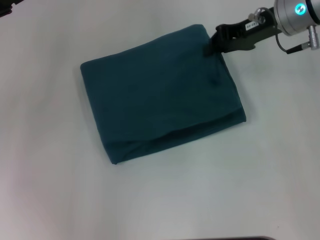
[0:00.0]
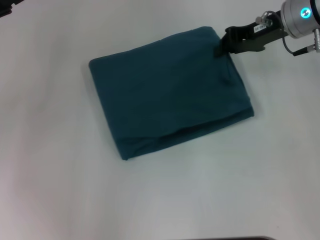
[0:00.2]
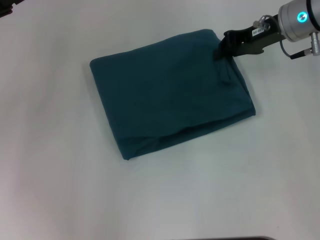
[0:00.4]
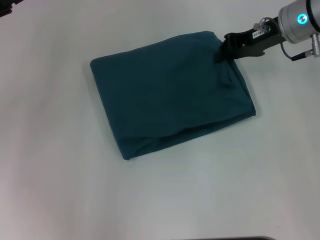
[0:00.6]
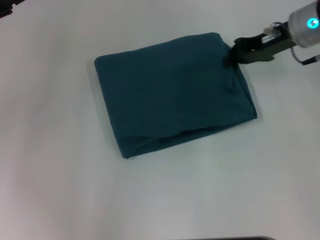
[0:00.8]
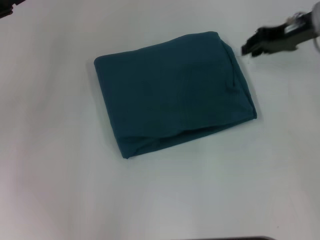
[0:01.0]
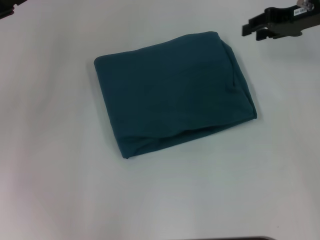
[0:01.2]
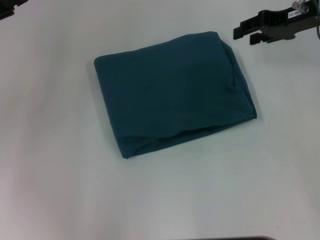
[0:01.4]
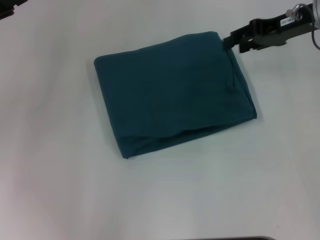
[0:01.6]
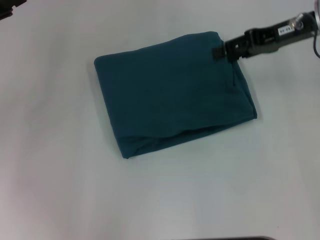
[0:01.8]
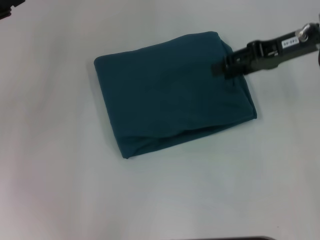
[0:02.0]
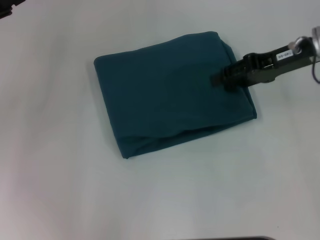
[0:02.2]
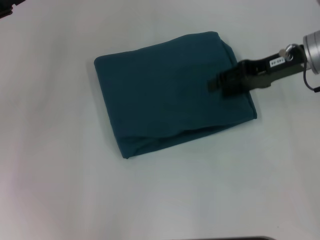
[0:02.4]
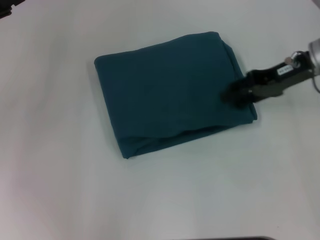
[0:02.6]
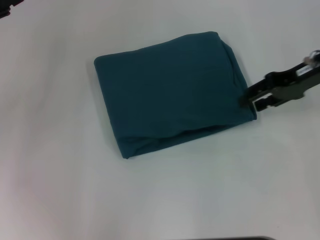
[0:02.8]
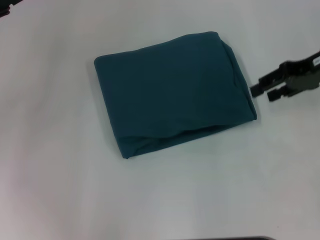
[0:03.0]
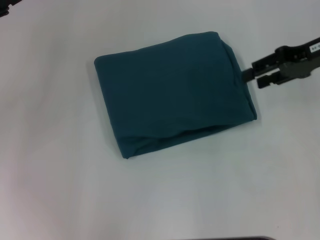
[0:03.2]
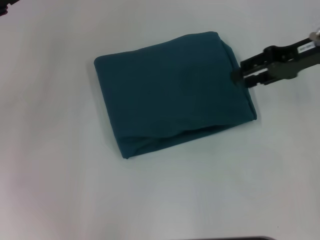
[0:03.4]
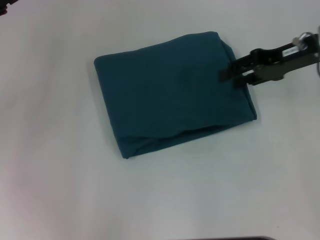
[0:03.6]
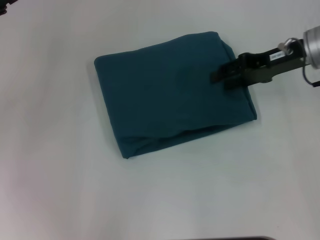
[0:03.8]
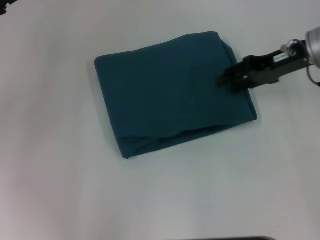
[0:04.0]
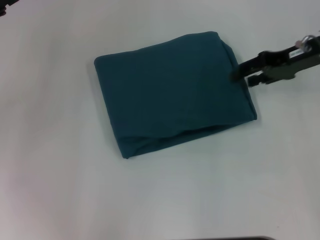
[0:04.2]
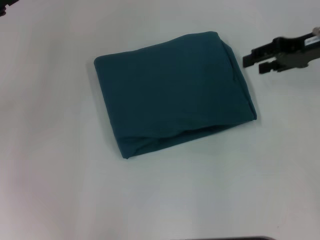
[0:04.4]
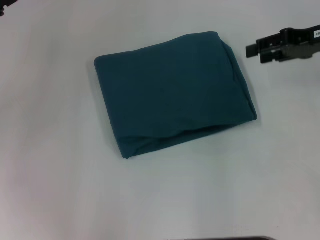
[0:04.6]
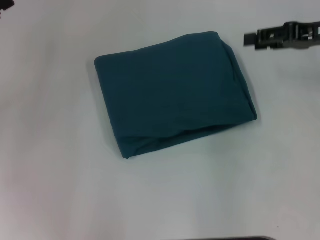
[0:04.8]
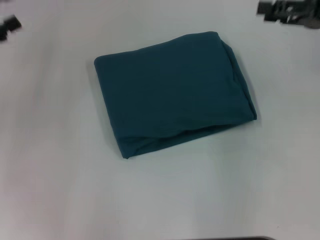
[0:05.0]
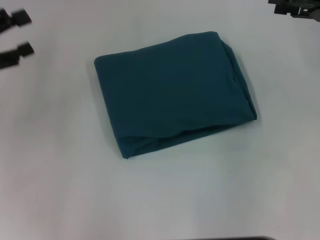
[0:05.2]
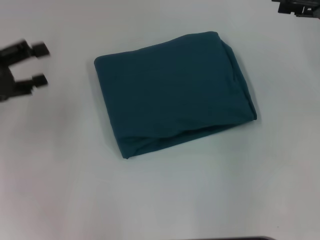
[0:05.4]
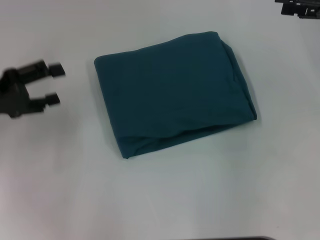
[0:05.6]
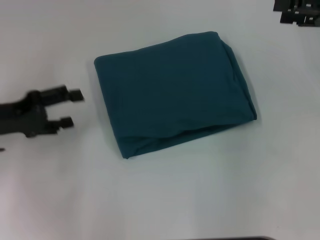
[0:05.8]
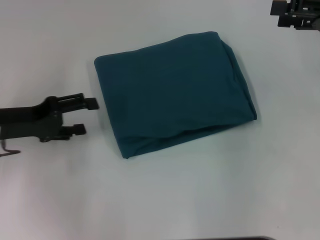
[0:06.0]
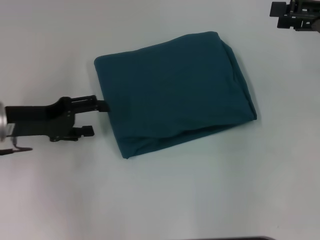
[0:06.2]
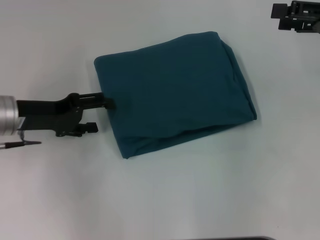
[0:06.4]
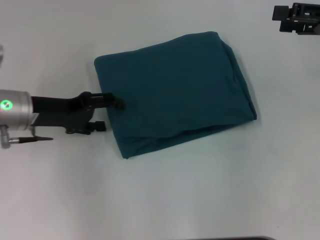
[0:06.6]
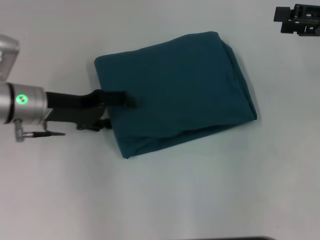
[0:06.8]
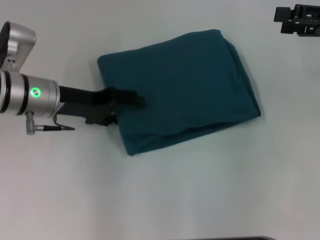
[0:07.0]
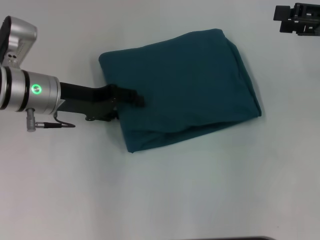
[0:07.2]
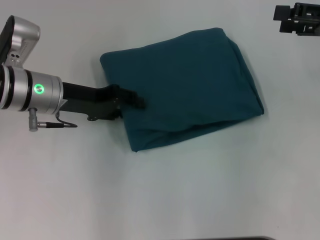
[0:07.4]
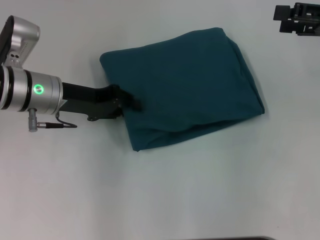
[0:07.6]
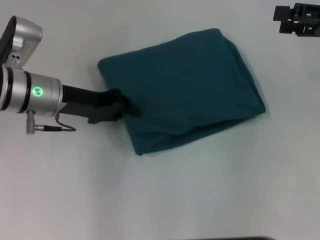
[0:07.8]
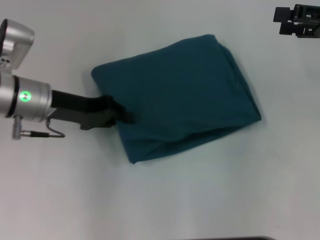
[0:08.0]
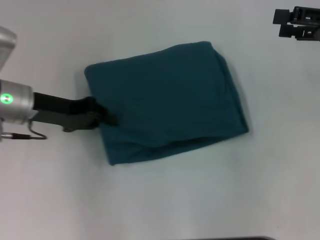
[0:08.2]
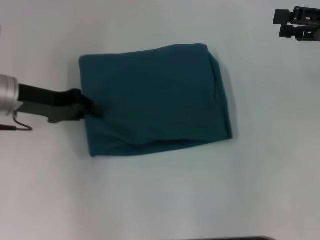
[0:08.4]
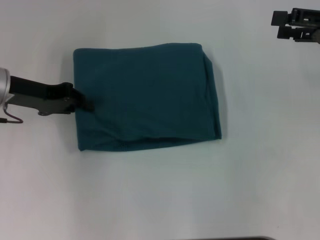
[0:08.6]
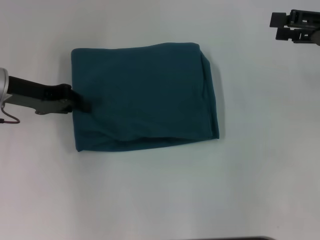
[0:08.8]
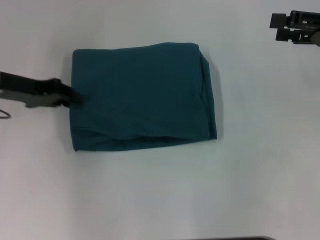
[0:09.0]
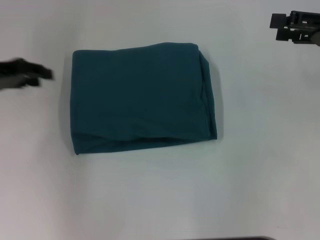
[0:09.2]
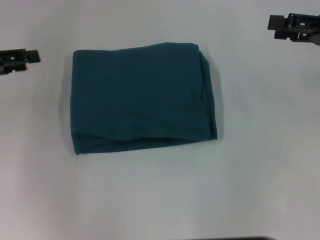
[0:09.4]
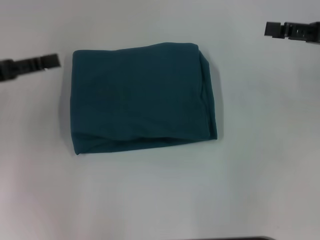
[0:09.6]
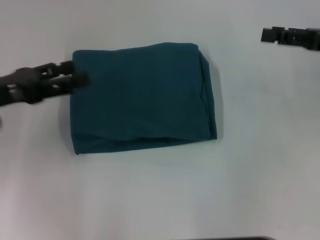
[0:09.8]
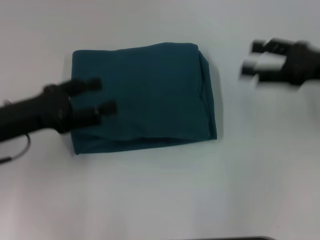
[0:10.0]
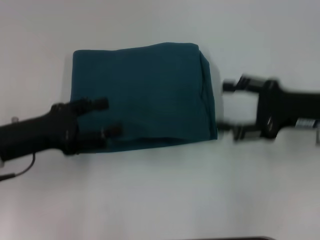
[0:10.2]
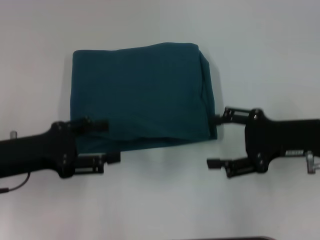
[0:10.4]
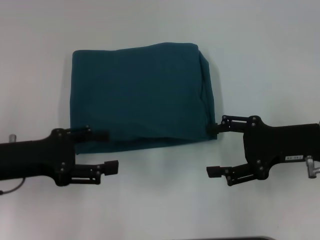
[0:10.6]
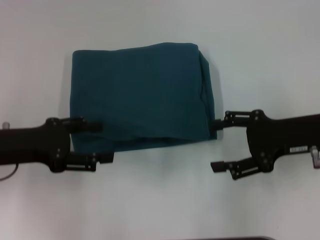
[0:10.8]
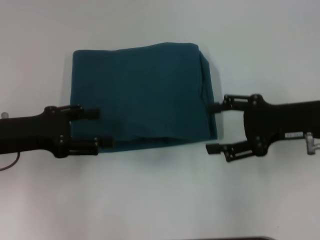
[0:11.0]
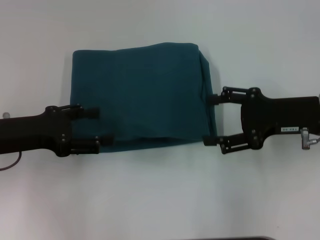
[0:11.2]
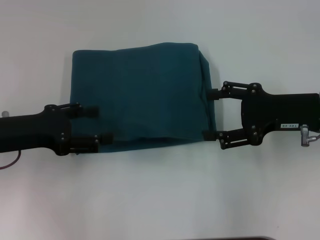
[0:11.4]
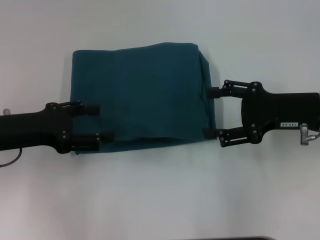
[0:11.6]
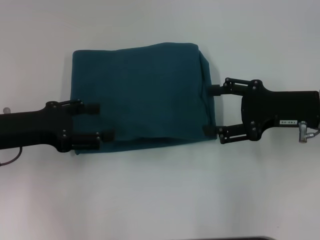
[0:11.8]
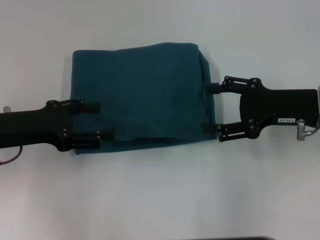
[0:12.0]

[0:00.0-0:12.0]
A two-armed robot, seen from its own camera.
0:00.0 to 0:01.6: The right gripper opens its fingers.
0:01.6 to 0:03.0: The right gripper shifts by about 5 cm.
0:03.0 to 0:04.4: There are only small adjustments of the grippers.
0:04.4 to 0:06.0: The right gripper ends up about 5 cm from where it was, while the left gripper goes roughly 10 cm downward.
0:06.0 to 0:07.6: The left gripper shifts some 10 cm to the right and forward.
0:07.6 to 0:09.0: The left gripper goes approximately 10 cm to the left.
0:09.0 to 0:10.4: The left gripper shifts some 10 cm backward, and opens. The right gripper is displaced downward, to the left and backward by roughly 15 cm.

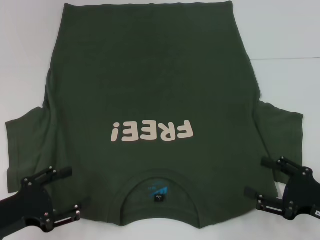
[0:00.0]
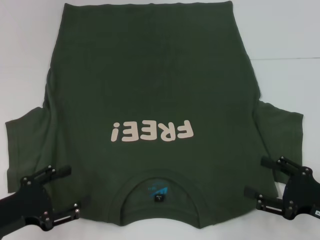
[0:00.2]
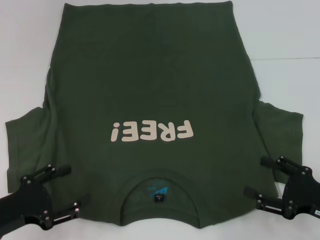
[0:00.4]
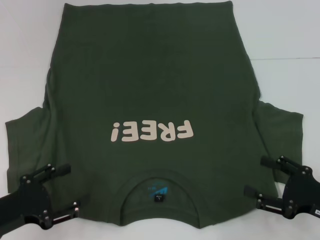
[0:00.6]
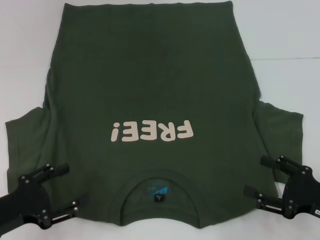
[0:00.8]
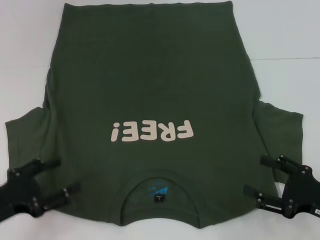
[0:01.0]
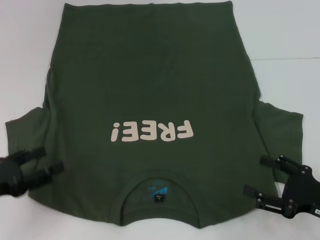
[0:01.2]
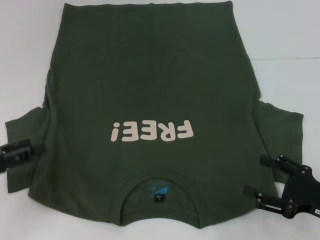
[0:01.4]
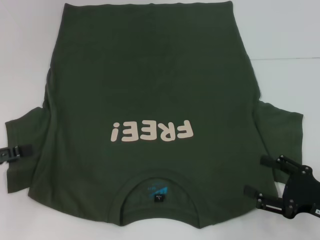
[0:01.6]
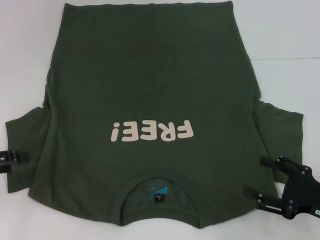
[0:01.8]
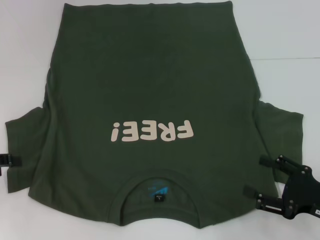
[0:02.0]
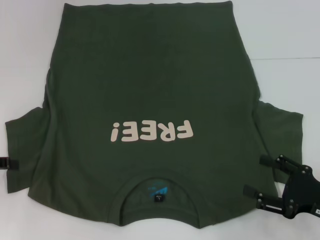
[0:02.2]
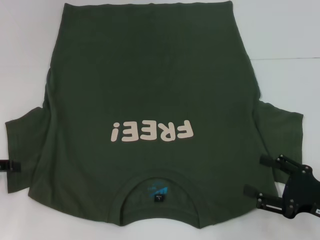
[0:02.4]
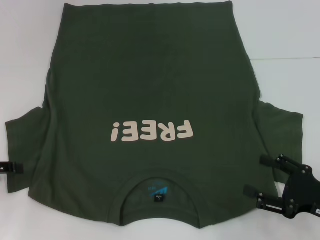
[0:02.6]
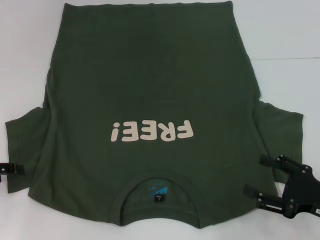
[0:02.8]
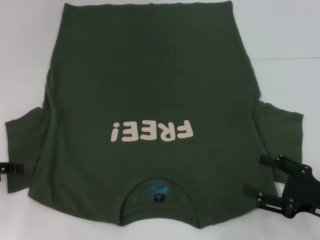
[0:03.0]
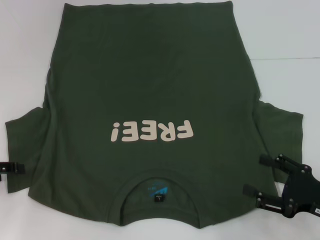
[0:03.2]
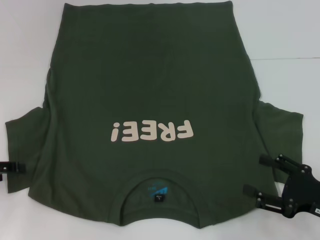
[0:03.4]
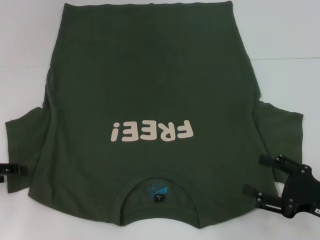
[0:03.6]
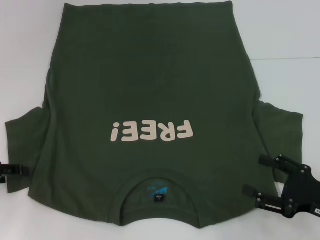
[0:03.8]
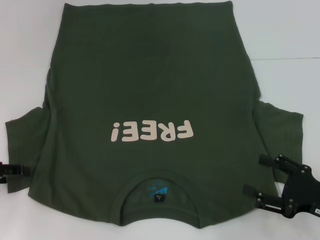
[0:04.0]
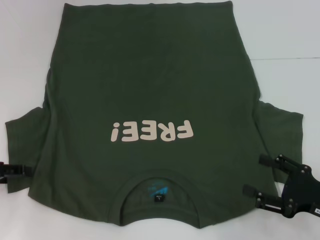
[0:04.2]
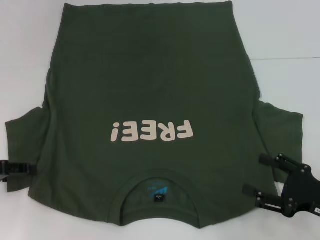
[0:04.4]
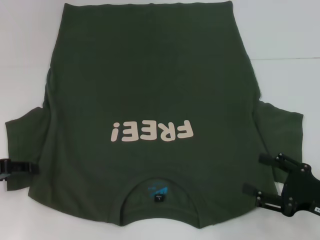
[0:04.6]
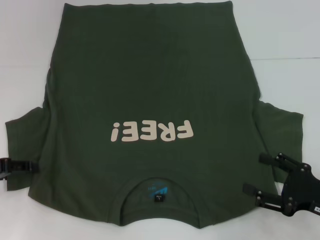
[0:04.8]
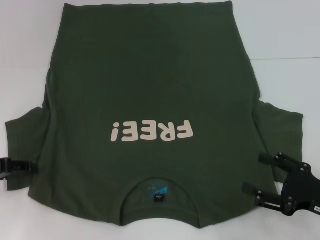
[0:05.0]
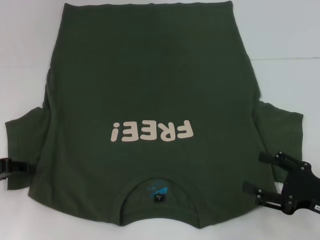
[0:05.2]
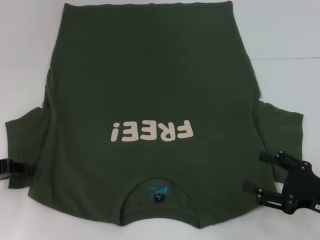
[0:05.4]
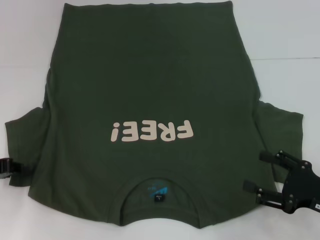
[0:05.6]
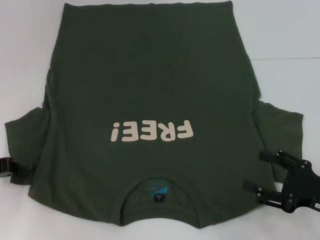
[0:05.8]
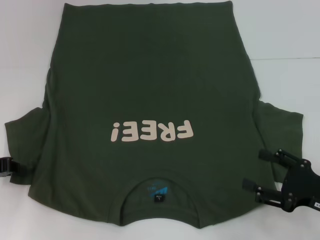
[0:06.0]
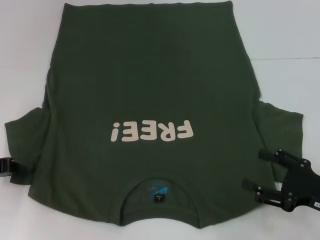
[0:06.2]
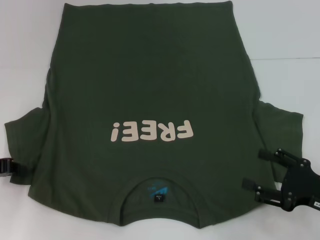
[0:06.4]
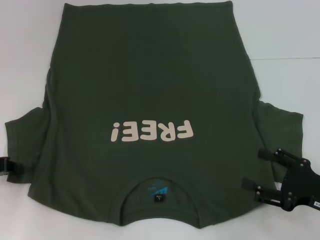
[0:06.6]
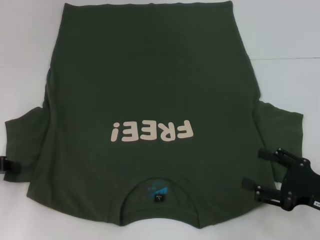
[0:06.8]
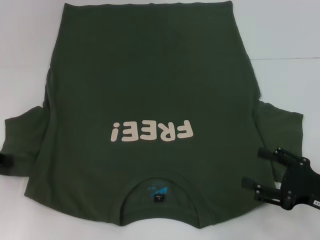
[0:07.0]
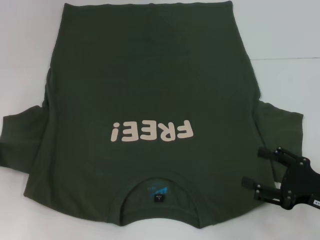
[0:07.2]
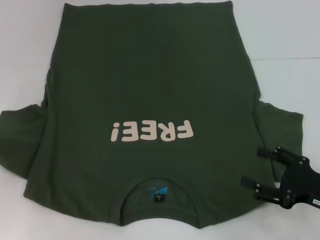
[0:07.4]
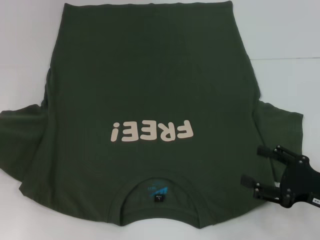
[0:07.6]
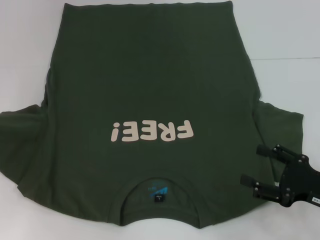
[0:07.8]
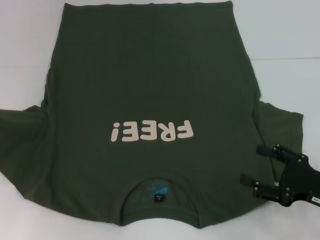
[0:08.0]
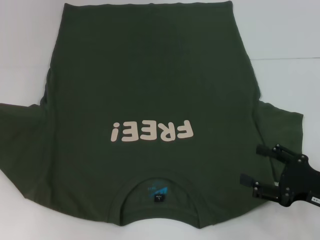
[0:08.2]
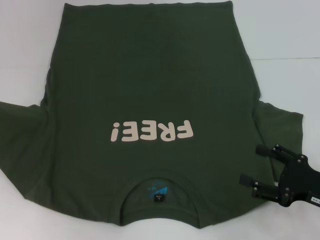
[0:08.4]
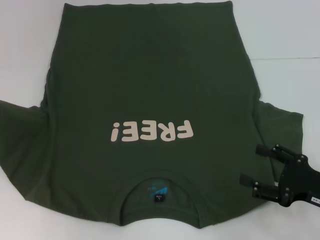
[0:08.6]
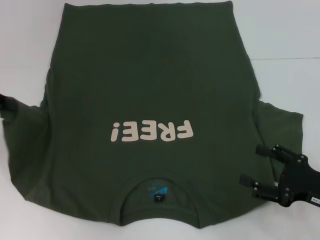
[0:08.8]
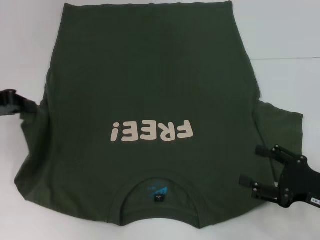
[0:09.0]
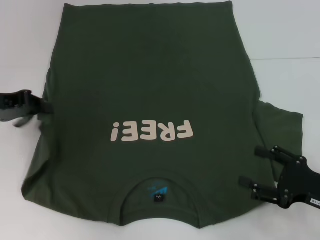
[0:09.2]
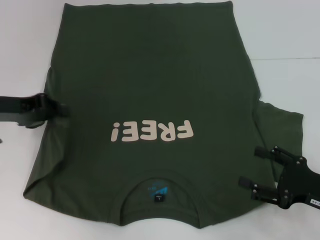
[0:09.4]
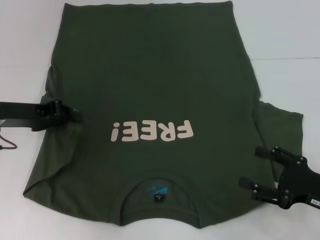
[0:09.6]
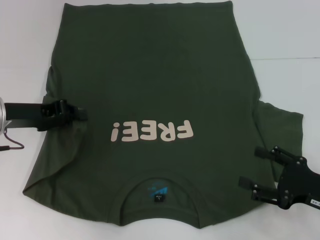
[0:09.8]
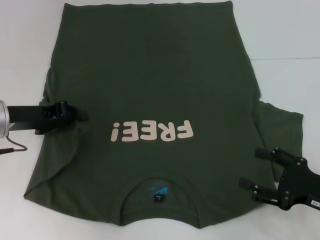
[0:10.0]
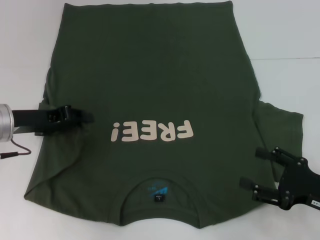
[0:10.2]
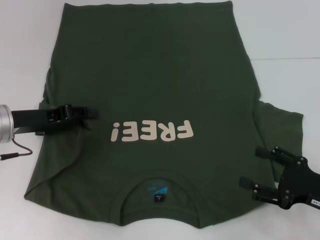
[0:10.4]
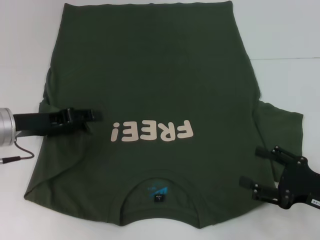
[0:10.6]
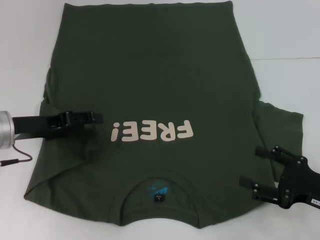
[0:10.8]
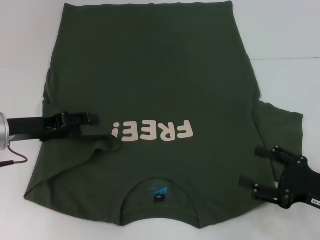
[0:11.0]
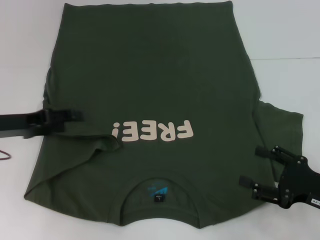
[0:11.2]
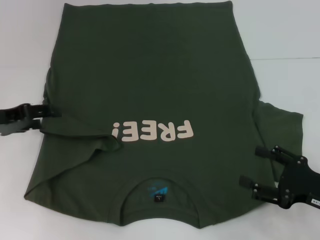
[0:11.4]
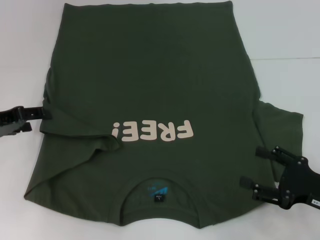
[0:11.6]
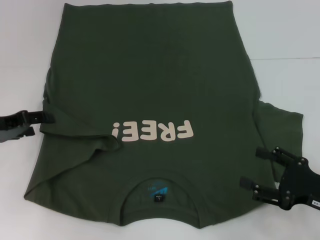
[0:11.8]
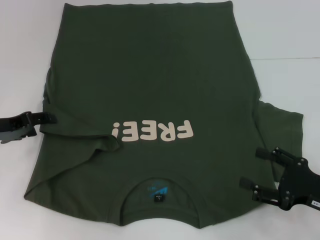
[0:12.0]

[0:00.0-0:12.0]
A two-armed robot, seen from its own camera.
0:00.0 to 0:01.6: The left gripper goes roughly 10 cm to the left, upward and forward.
0:06.0 to 0:07.6: The left gripper ends up roughly 5 cm from where it was.
0:07.6 to 0:09.0: The left gripper goes roughly 5 cm to the right.
0:09.0 to 0:10.4: The left gripper heads to the right and downward, covering some 10 cm.
0:10.4 to 0:12.0: The left gripper changes place by about 5 cm, and opens.
